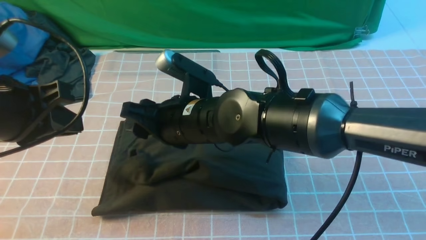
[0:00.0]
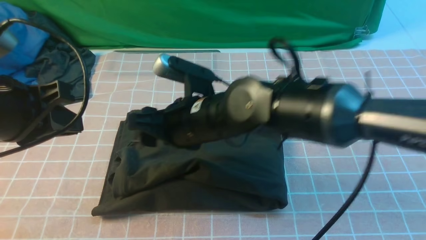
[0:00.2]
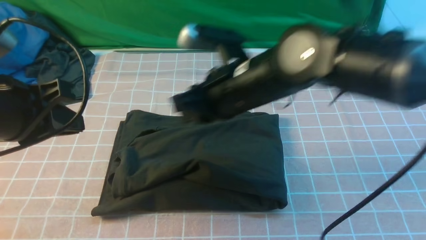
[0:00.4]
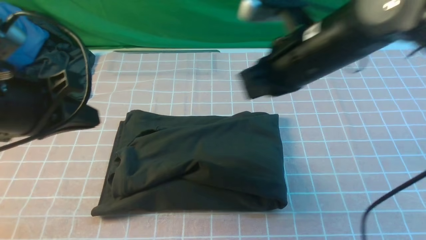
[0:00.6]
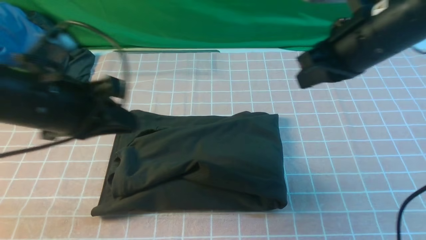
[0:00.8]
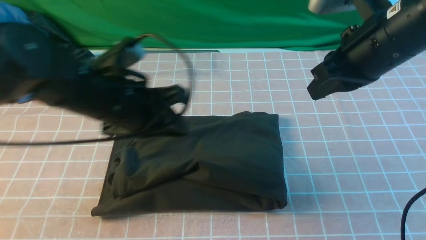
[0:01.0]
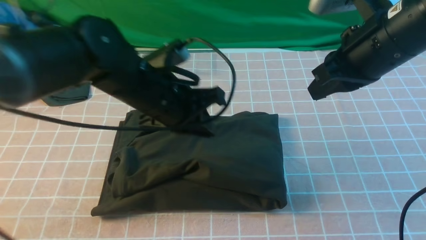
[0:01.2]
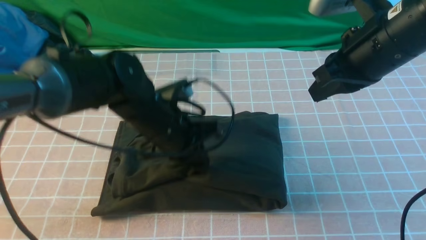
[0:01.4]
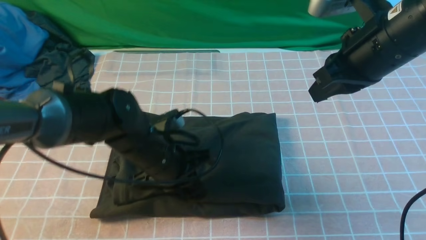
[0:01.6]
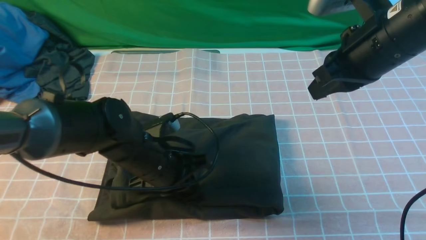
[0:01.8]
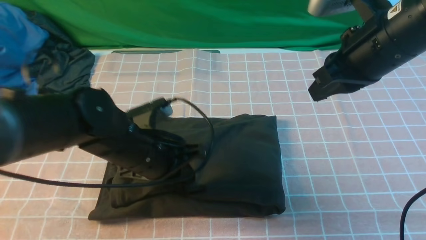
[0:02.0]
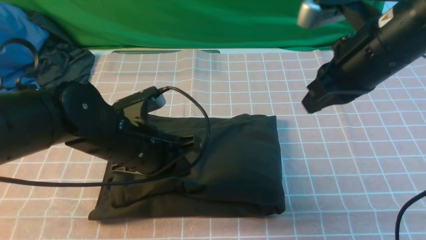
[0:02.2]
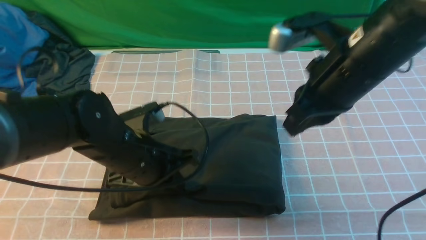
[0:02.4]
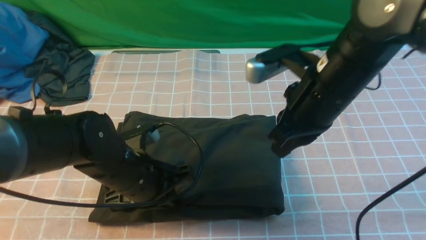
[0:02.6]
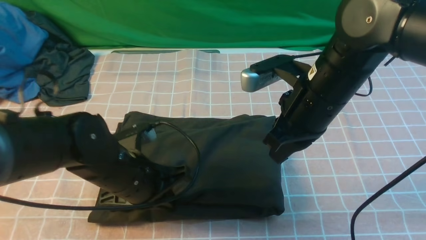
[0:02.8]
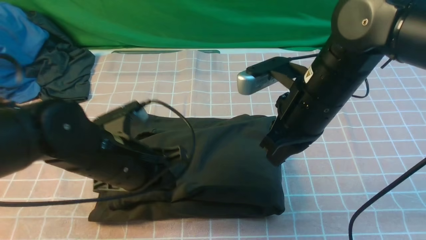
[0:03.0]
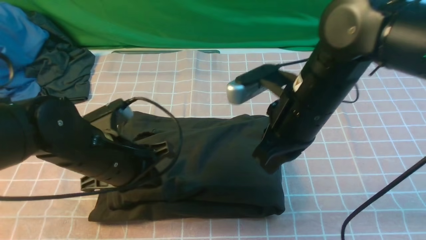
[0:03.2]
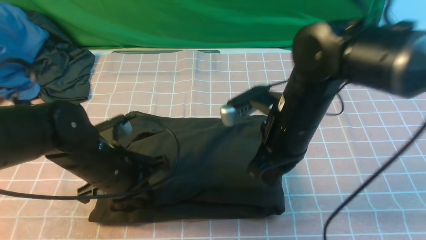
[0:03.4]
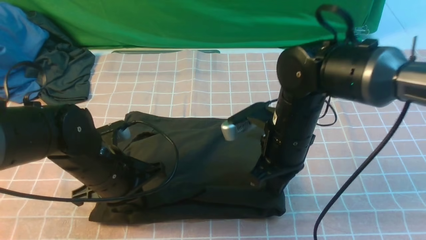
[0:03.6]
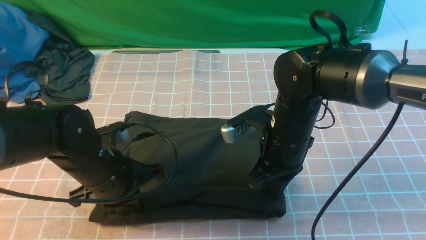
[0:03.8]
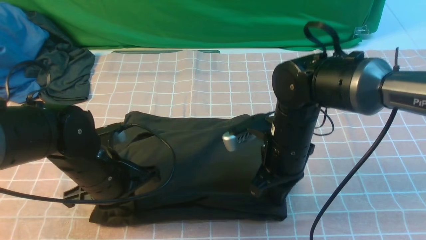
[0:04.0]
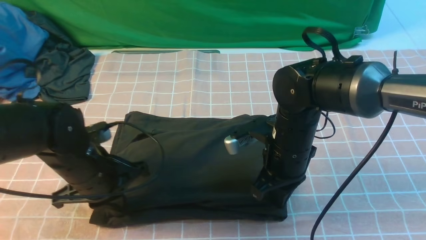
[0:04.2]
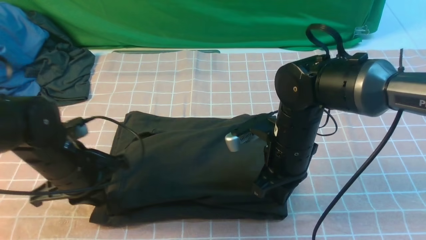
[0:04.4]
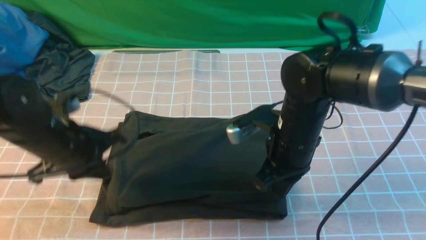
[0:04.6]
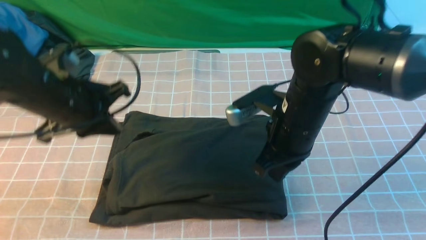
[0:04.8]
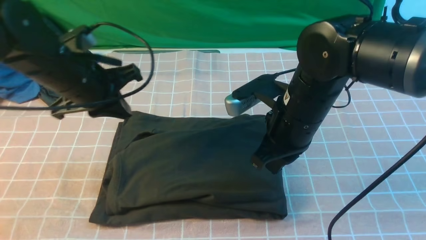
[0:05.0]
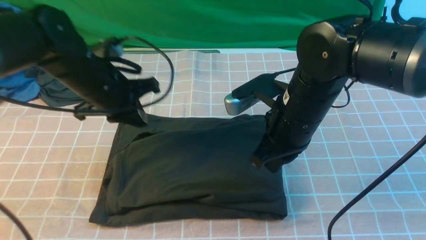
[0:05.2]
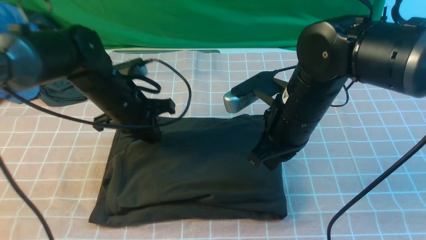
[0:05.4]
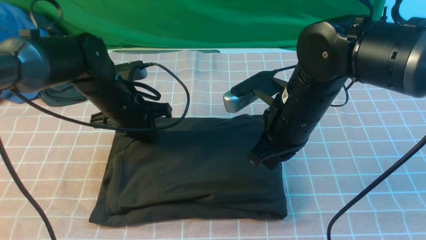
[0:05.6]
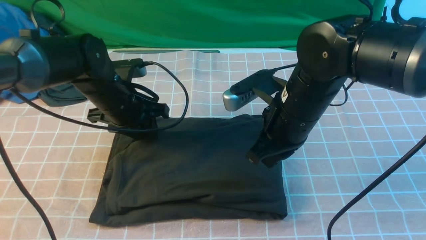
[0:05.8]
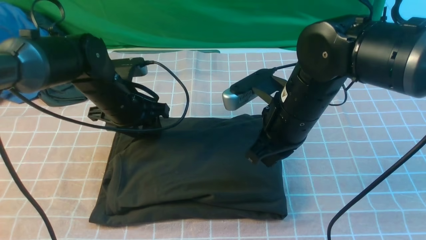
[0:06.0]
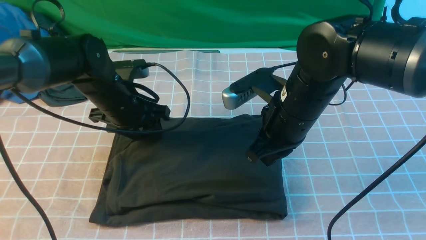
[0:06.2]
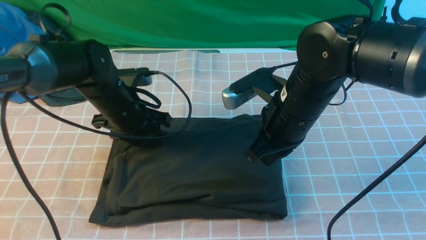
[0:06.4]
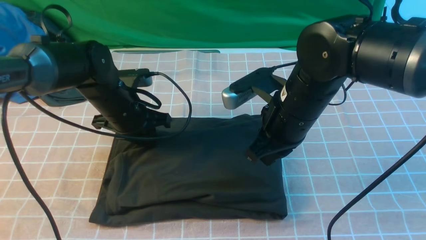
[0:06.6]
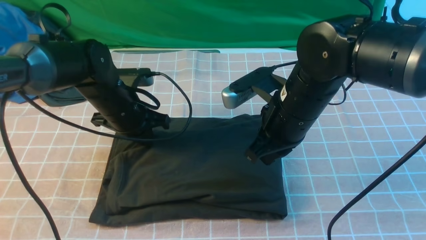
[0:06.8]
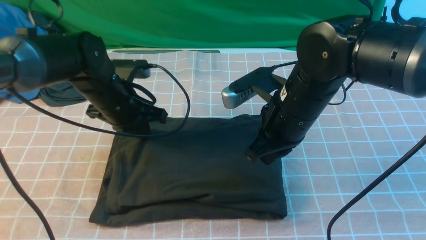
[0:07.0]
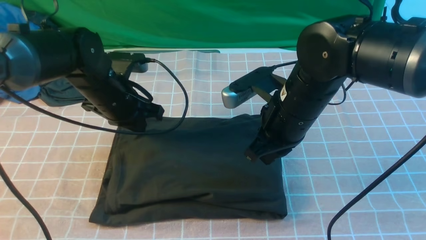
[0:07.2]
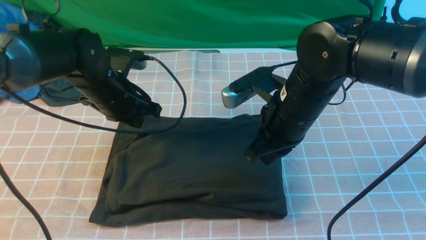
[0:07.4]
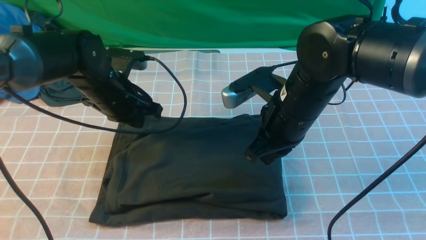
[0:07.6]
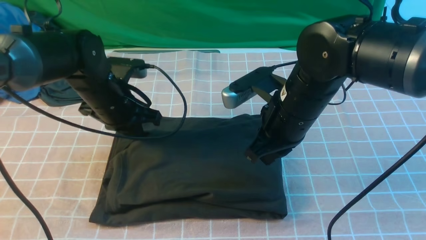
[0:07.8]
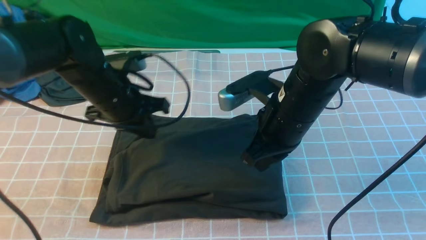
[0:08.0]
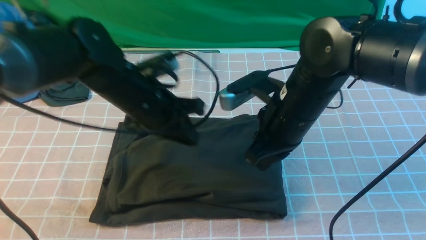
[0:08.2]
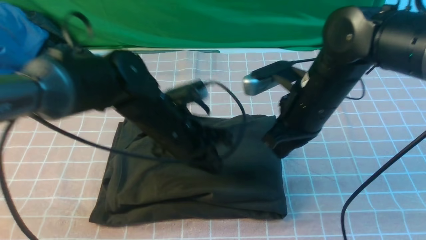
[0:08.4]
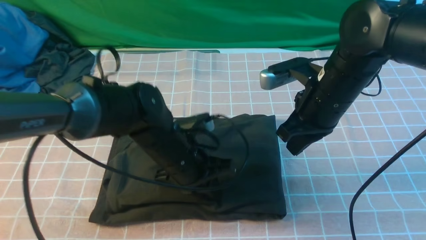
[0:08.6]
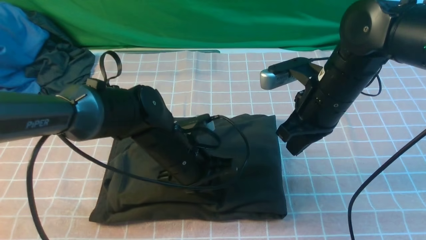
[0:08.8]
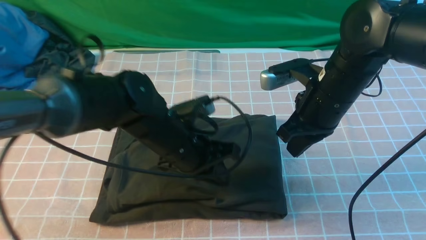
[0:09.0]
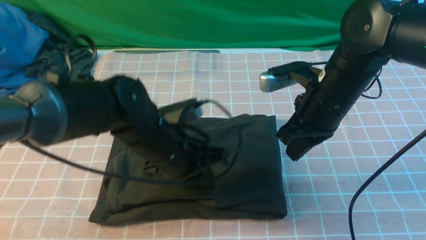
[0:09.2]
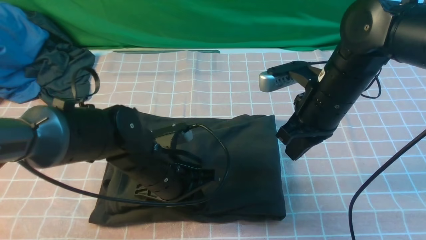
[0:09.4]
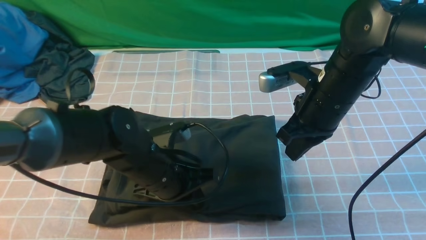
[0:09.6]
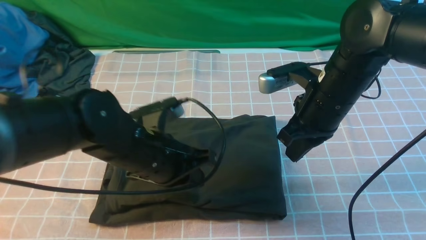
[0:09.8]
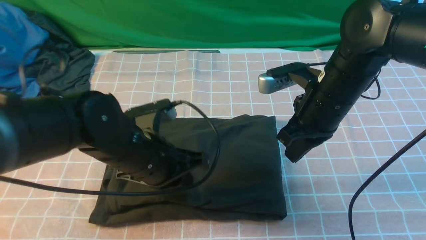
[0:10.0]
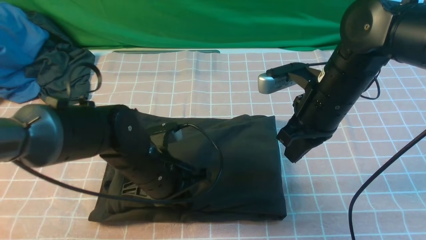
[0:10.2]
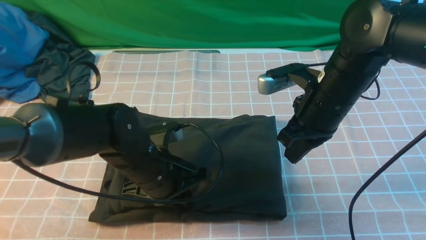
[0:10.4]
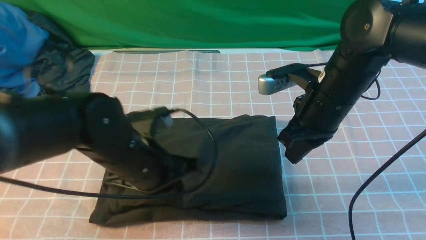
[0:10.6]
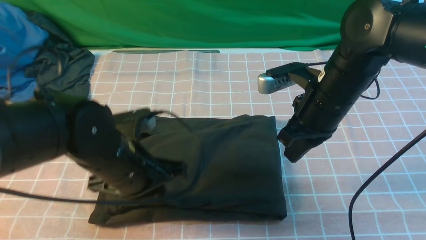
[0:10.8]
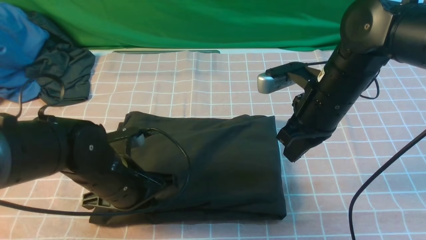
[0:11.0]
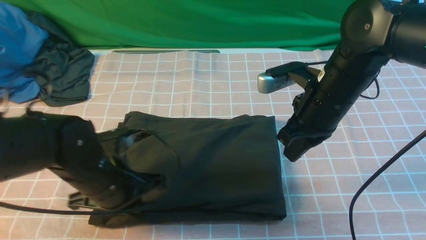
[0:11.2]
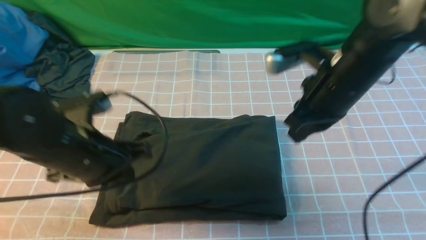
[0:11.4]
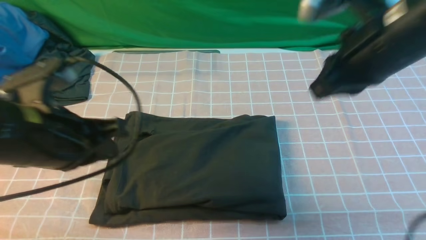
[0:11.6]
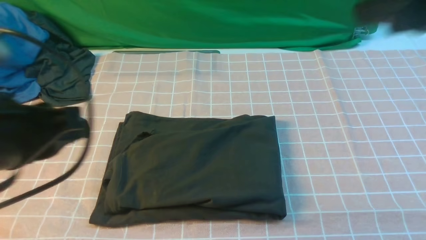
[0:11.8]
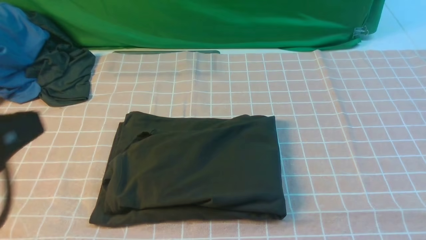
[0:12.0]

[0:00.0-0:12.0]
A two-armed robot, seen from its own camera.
0:00.0 to 0:01.6: The left gripper is displaced downward, to the right and forward by some 25 cm; the right gripper moves to the right and upward, roughly 25 cm, and closes.
0:01.6 to 0:03.0: The left gripper changes place by about 5 cm. Meanwhile the right gripper goes some 10 cm to the left and downward.
0:03.0 to 0:04.4: The left gripper travels to the left by about 5 cm; the right gripper moves downward, approximately 10 cm.
0:04.4 to 0:06.0: The left gripper heads forward, covering about 10 cm, and opens its fingers. Meanwhile the right gripper shifts about 5 cm upward.
0:06.0 to 0:07.6: The left gripper closes its fingers.
0:07.6 to 0:09.0: The right gripper shifts some 5 cm to the right; the left gripper heads to the right and backward, covering approximately 15 cm.
0:10.4 to 0:12.0: The right gripper travels upward, backward and to the right by approximately 30 cm. Meanwhile the left gripper goes roughly 25 cm upward, backward and to the left.

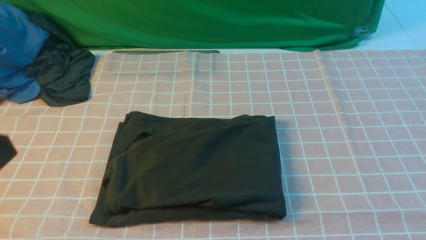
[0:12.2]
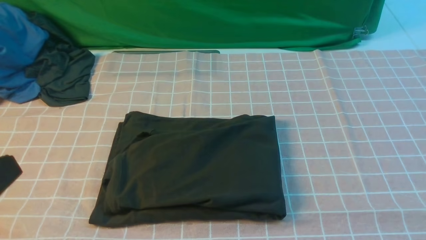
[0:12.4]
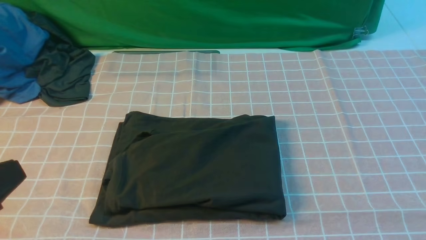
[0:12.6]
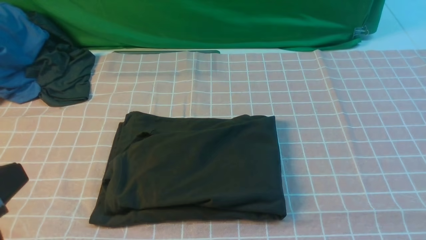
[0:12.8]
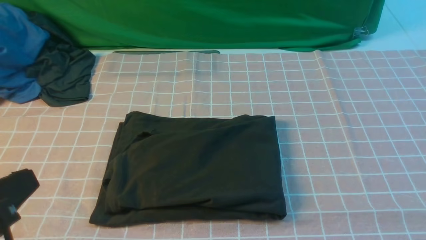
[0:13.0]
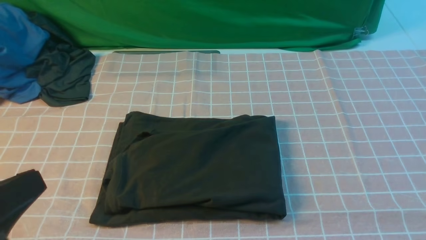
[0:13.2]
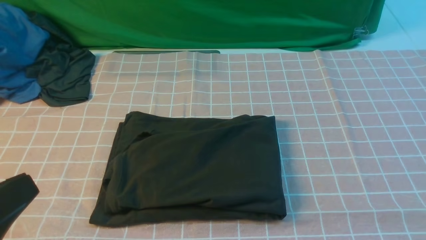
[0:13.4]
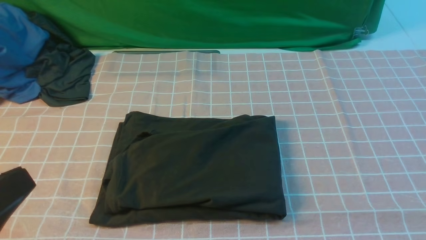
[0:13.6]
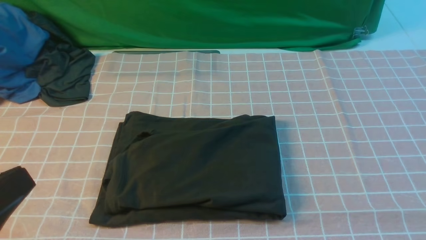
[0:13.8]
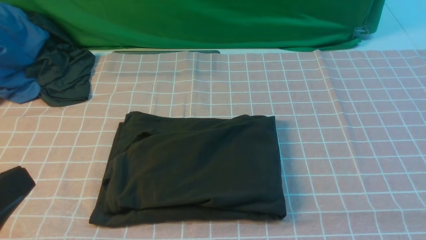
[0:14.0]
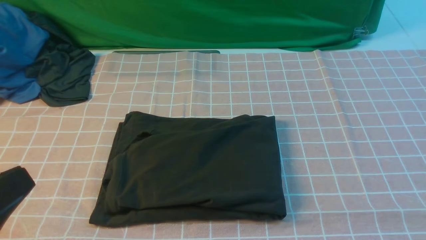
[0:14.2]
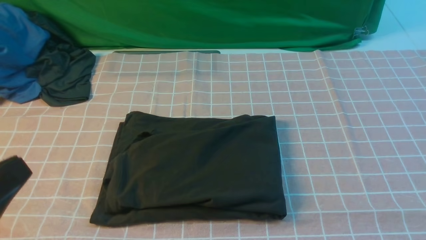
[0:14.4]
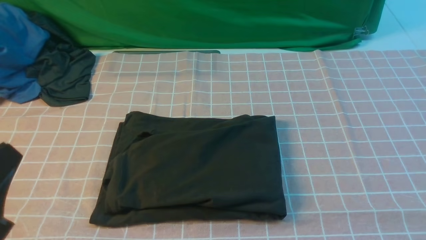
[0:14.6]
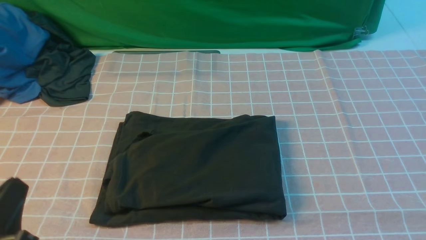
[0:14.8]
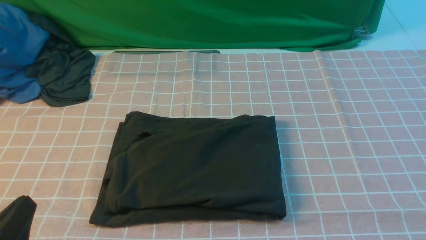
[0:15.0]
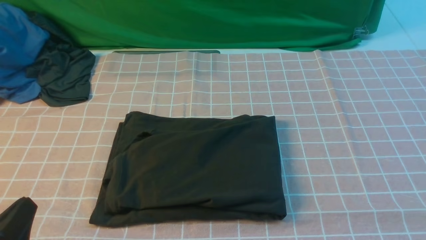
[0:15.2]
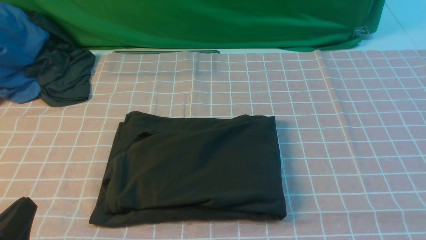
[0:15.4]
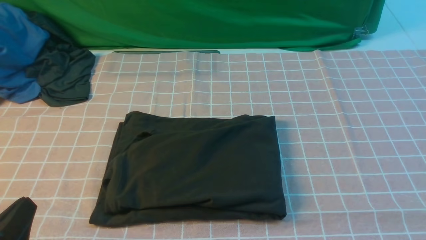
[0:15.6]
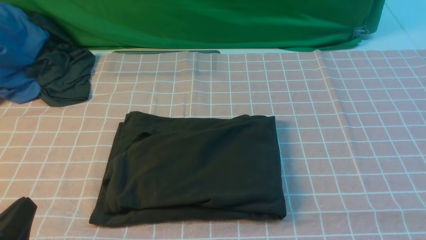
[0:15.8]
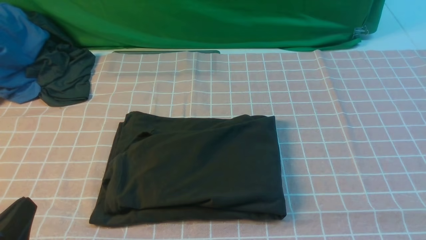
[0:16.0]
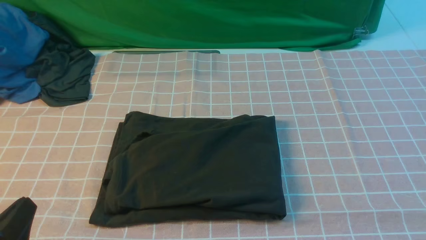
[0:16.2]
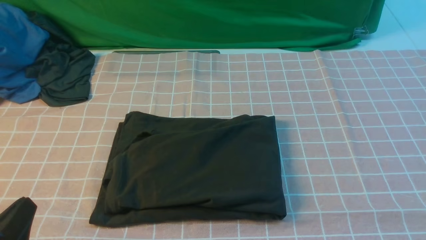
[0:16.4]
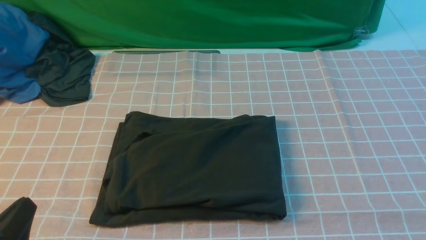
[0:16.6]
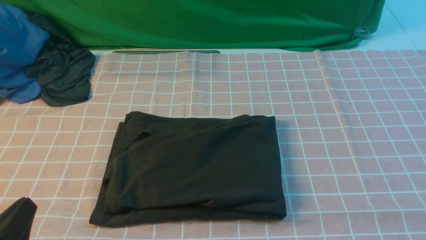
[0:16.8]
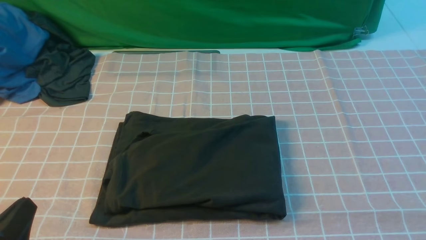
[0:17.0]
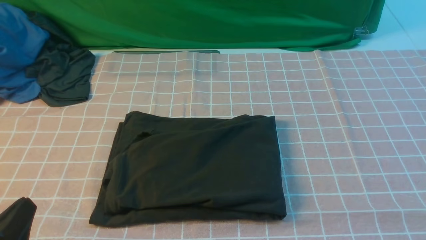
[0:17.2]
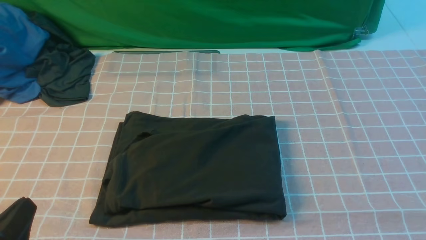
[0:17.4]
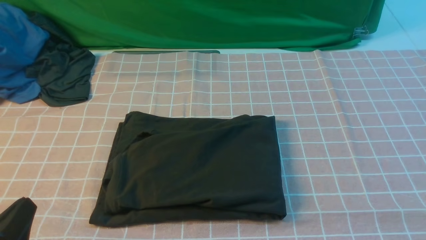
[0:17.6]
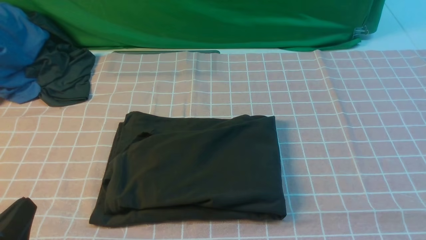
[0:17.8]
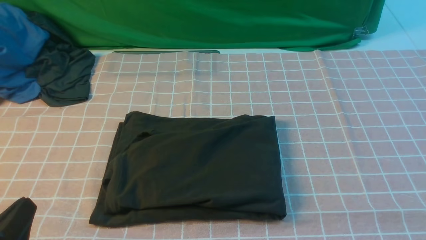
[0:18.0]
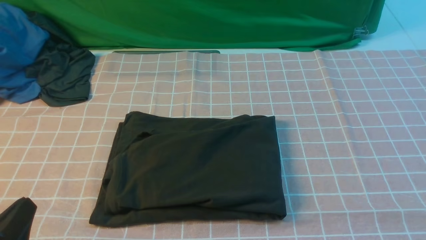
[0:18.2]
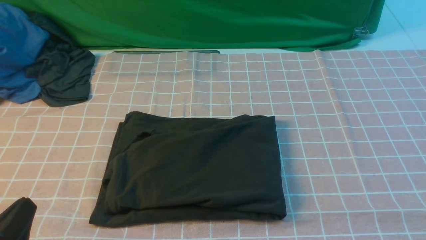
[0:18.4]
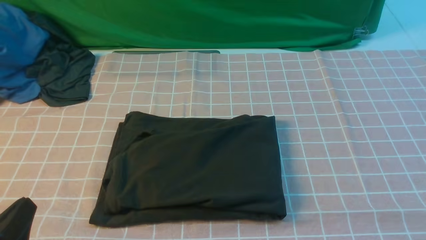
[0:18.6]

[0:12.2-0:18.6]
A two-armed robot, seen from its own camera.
0:13.8 to 0:15.4: The left gripper moves downward, roughly 15 cm.
0:17.0 to 0:18.6: The two grippers keep their place.
